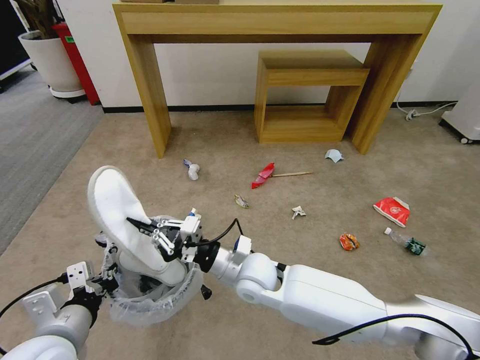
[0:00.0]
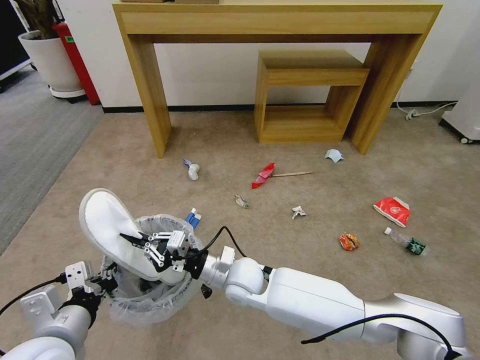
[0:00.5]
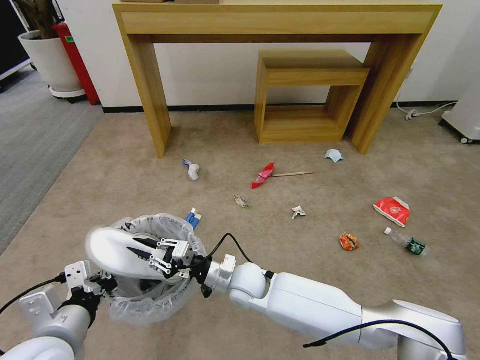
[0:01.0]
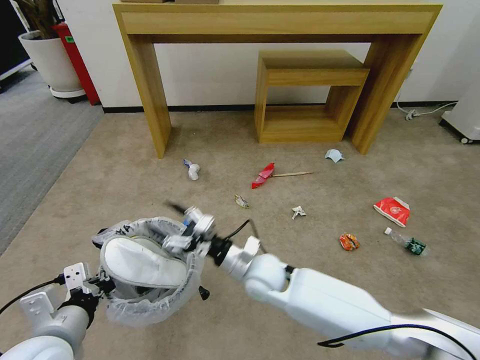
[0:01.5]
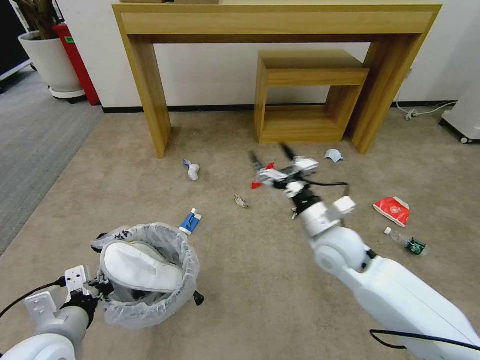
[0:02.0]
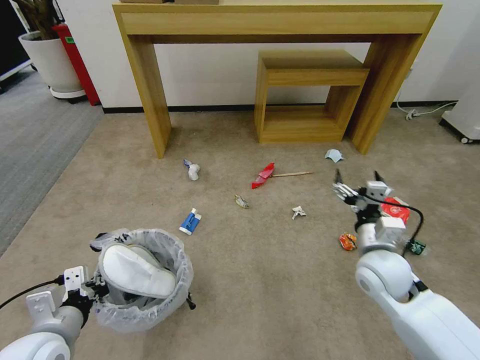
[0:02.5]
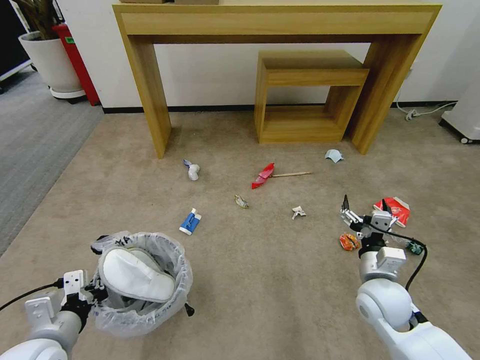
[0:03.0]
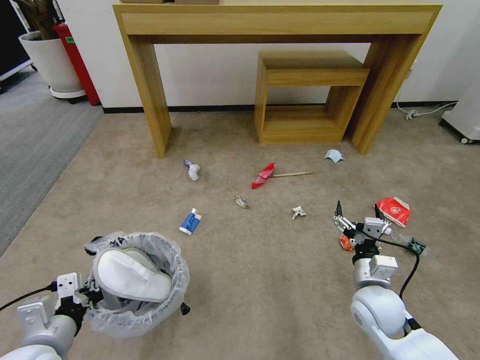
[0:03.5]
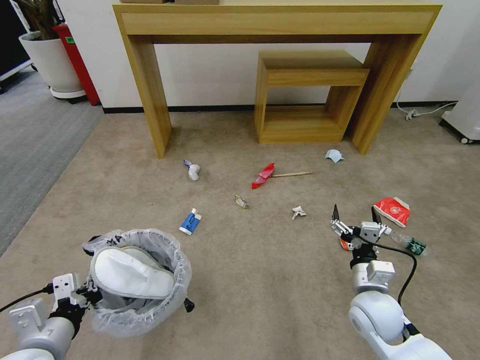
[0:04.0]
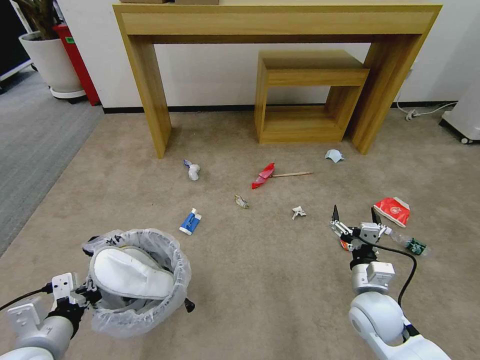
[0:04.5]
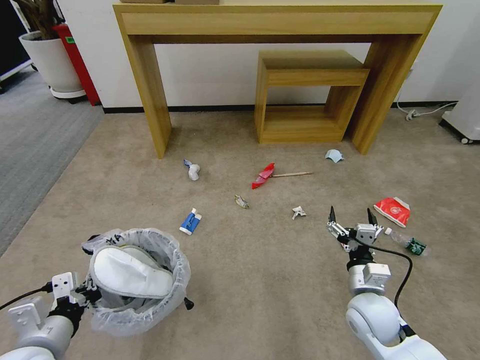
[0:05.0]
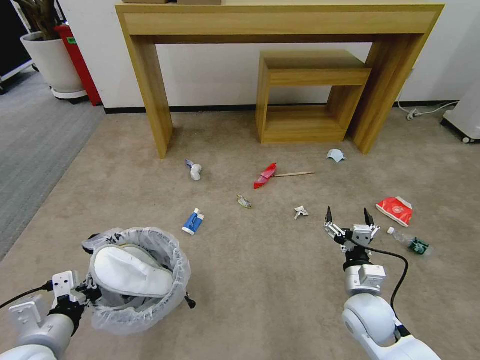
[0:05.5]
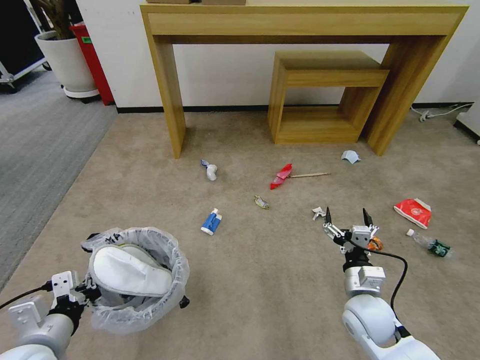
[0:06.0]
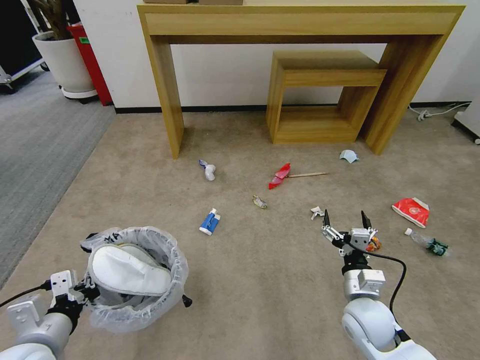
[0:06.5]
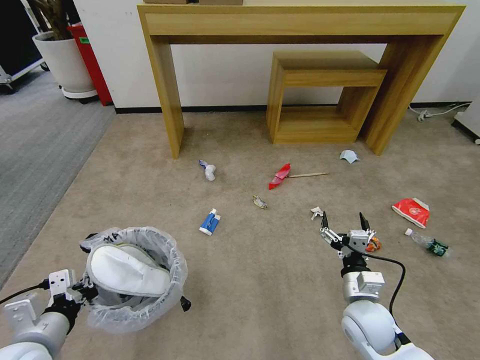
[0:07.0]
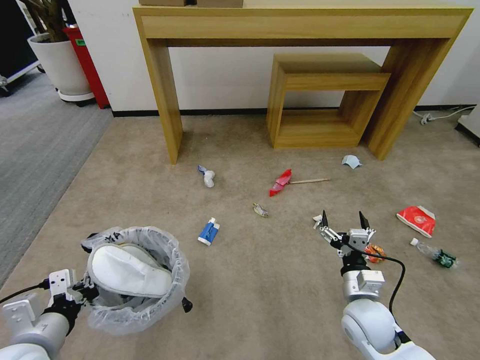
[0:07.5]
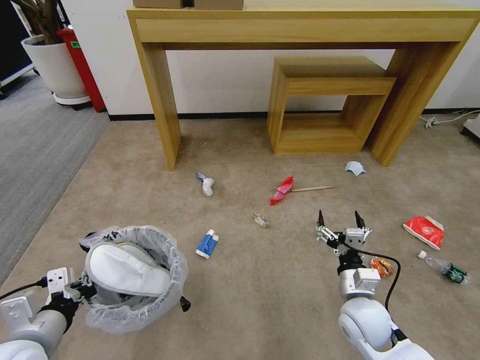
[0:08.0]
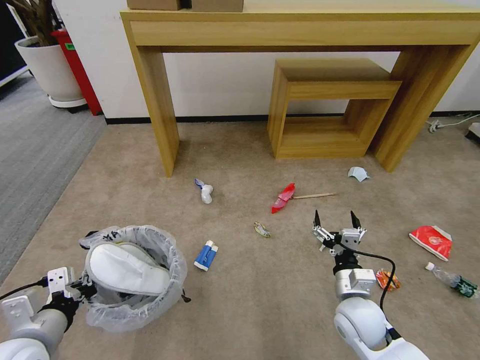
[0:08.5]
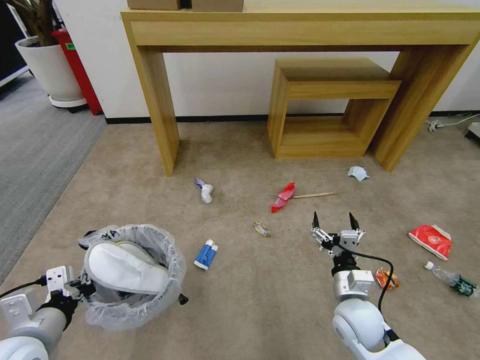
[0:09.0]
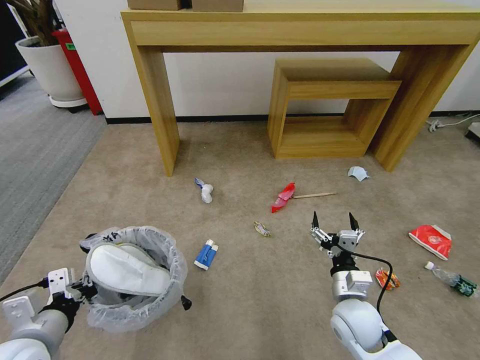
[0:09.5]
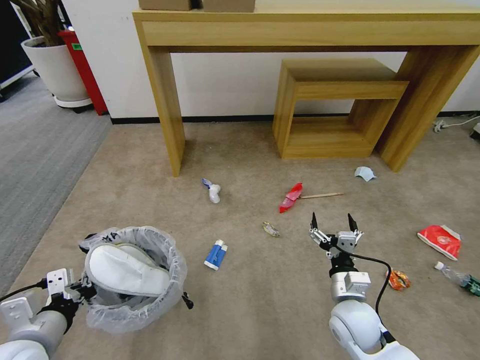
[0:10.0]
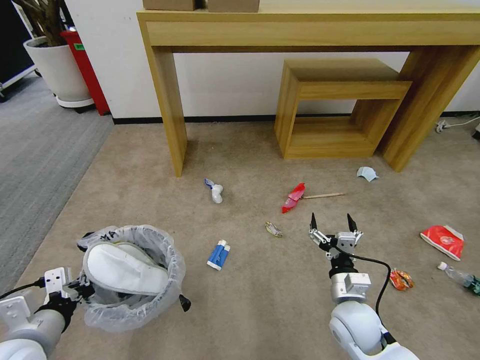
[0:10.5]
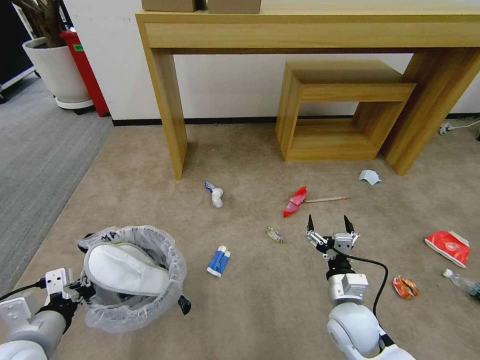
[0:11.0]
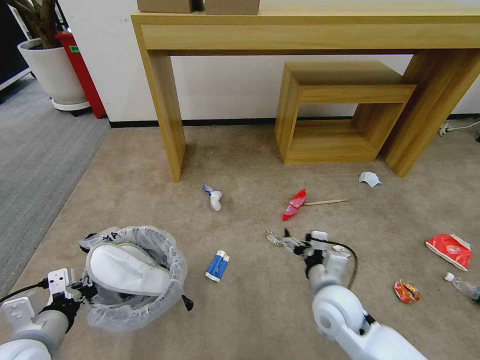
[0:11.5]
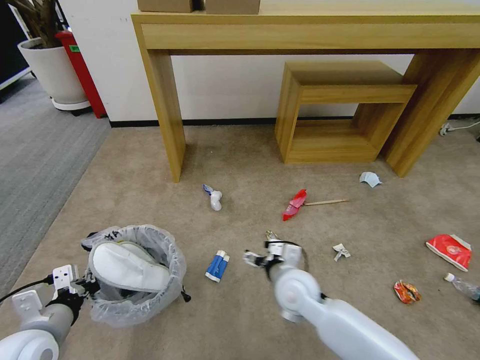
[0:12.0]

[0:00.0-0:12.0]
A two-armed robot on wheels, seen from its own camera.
Task of the whole recording: Pick up the trash bin and place the garbage on the floor into it.
0:00.0 to 0:02.0: The right gripper travels to the right by approximately 15 cm, and opens.
0:02.0 to 0:04.0: The right gripper goes about 15 cm downward, backward and to the right.
0:08.0 to 0:10.0: The grippers stay close to where they were, moving slightly.
0:10.0 to 0:12.0: The right gripper goes some 15 cm to the left and forward.

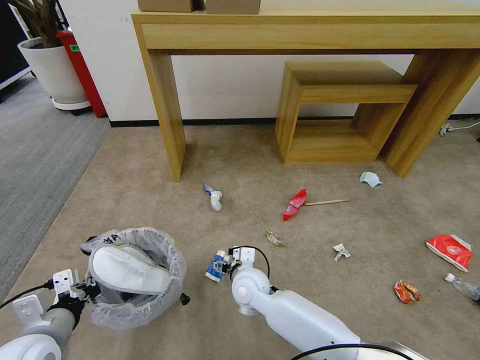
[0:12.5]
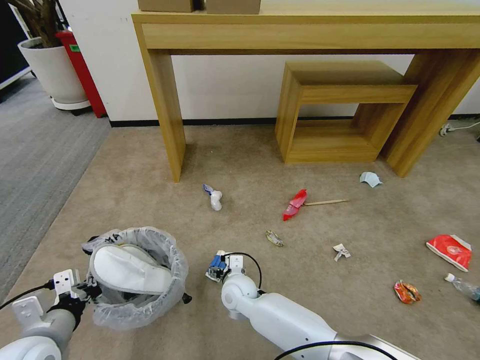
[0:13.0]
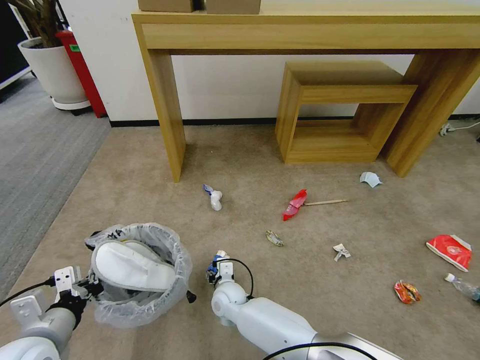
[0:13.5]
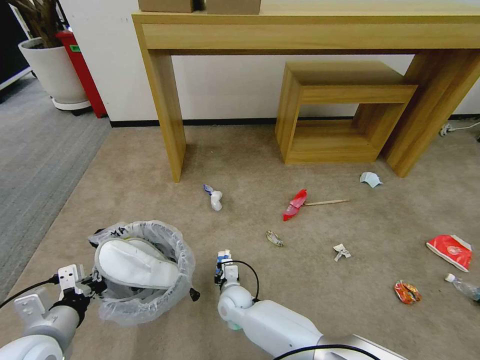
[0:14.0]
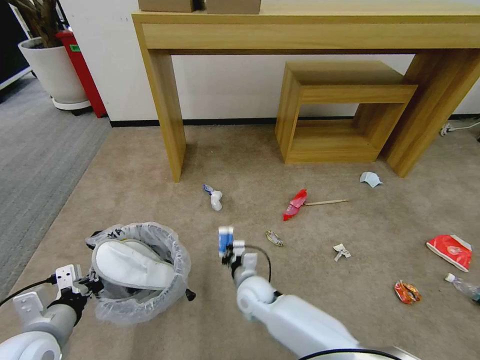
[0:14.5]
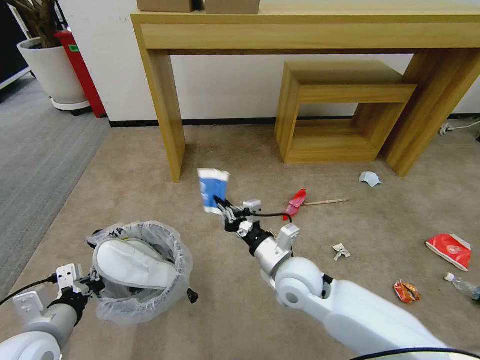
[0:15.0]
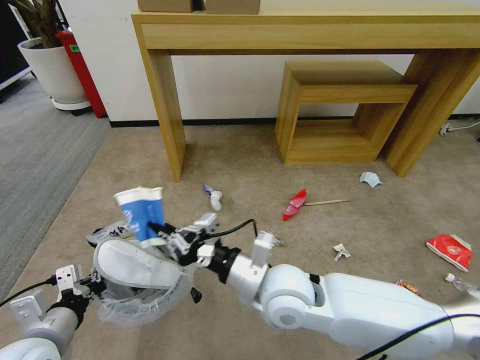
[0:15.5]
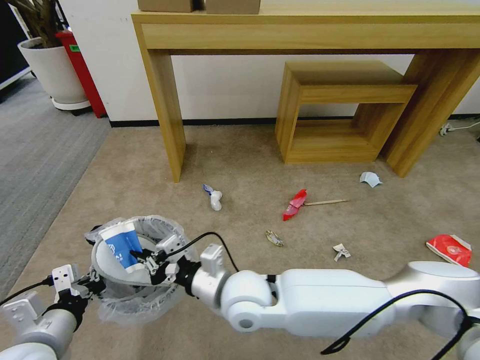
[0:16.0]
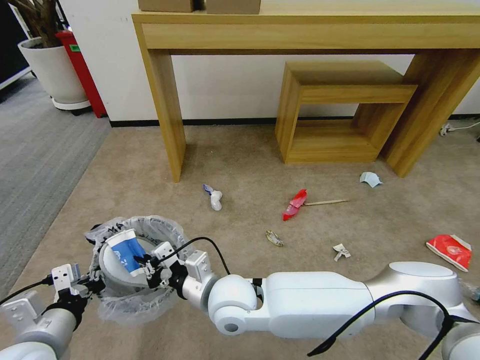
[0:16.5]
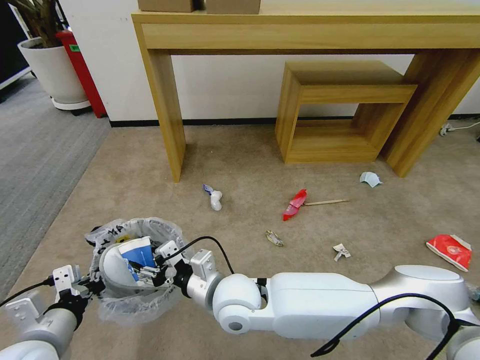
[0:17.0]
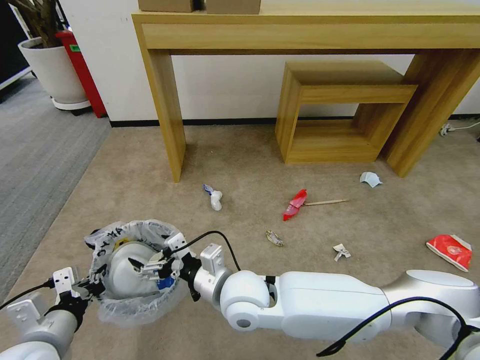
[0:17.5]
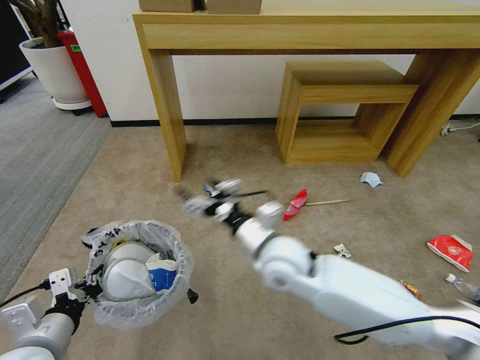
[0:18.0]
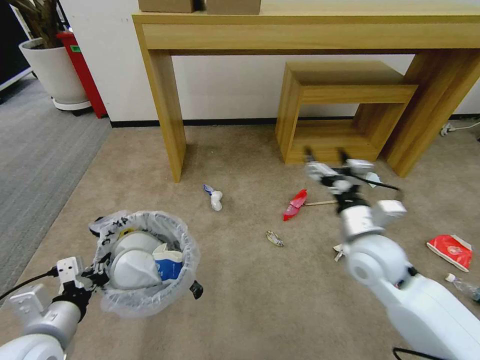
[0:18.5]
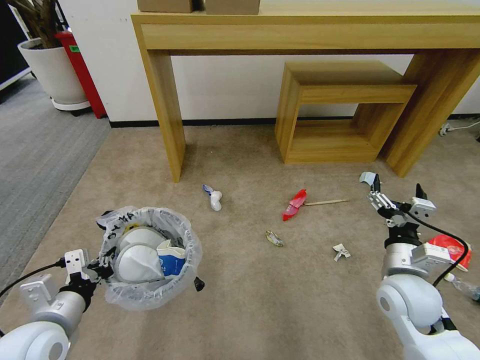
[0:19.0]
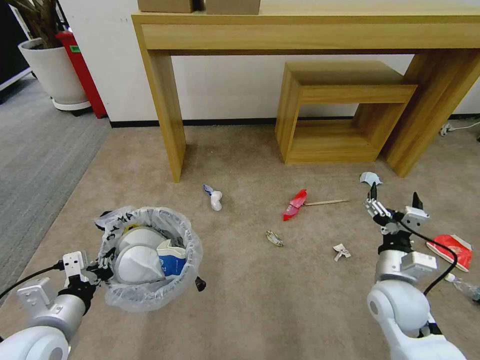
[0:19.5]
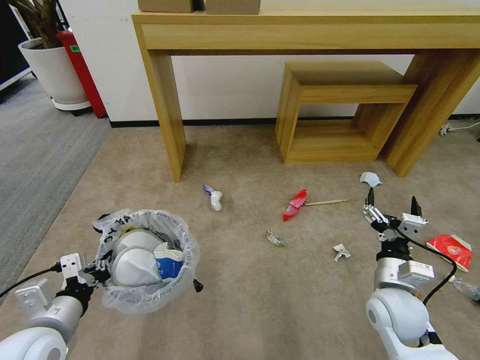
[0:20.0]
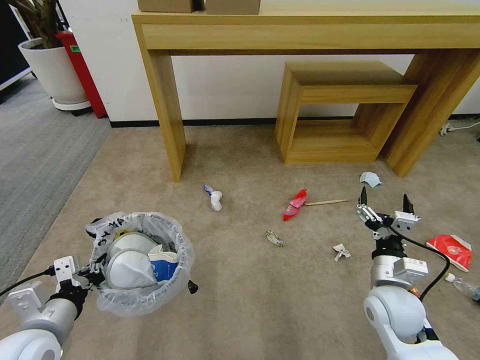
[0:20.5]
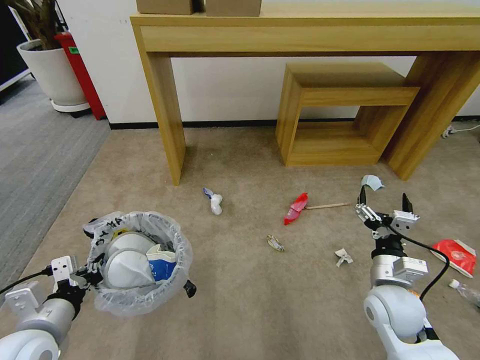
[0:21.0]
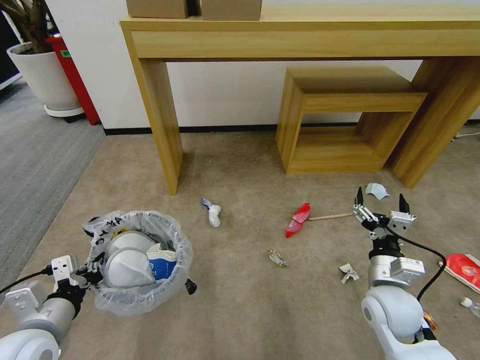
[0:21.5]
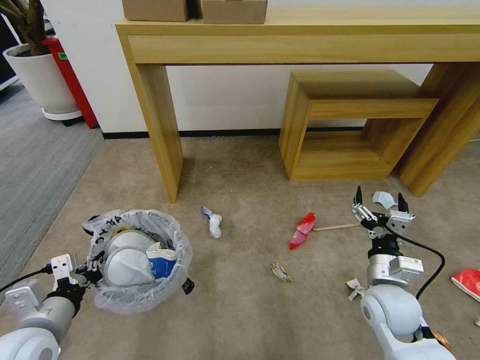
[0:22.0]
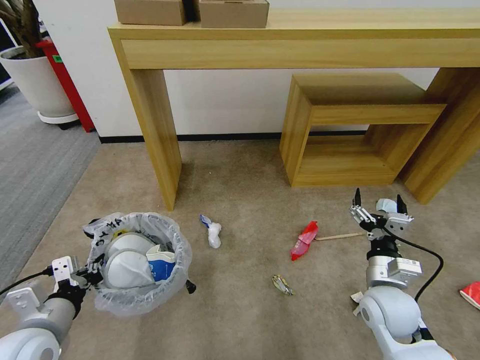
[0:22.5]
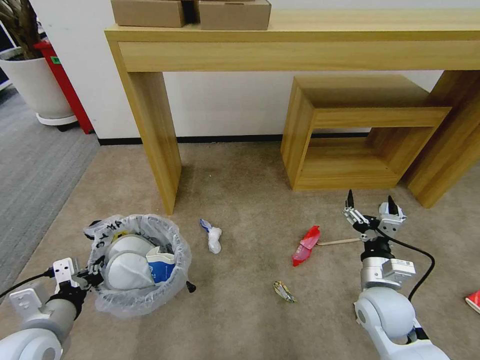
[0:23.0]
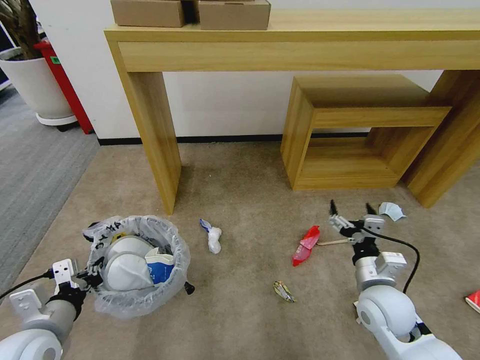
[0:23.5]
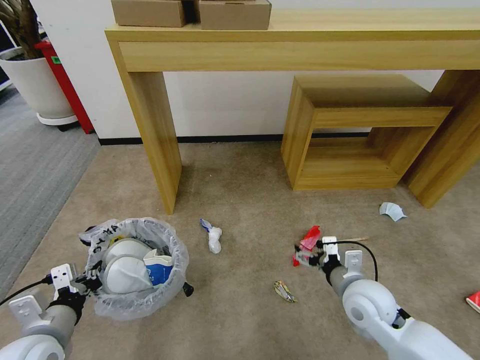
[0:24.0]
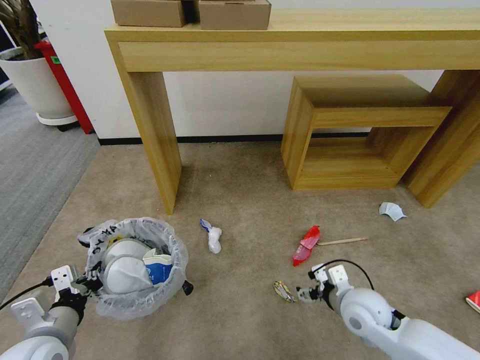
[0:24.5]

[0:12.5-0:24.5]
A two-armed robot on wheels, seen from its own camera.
Task of the whole recording: Pick up the trash bin and place the garbage on the floor into it.
0:12.5 to 0:14.5: The right gripper is displaced downward by about 5 cm, and closes up.
0:14.5 to 0:16.5: The right gripper moves upward and backward, approximately 20 cm.
0:16.5 to 0:18.5: The right gripper travels to the right by roughly 25 cm, and opens its fingers.
0:18.5 to 0:20.5: The right gripper travels downward, to the right and backward by some 15 cm.

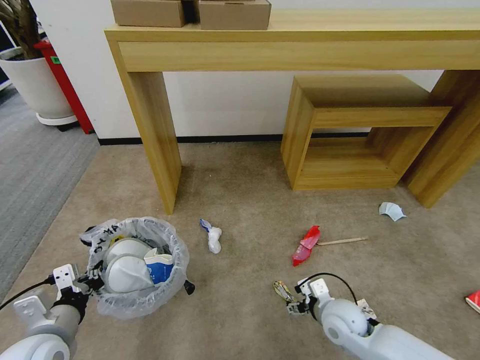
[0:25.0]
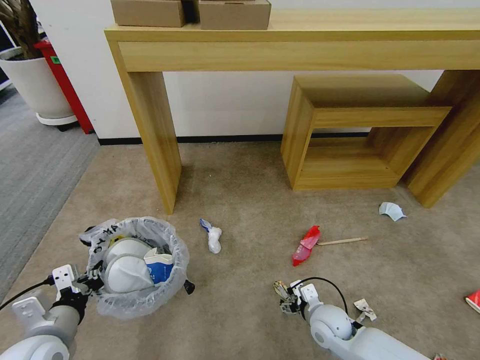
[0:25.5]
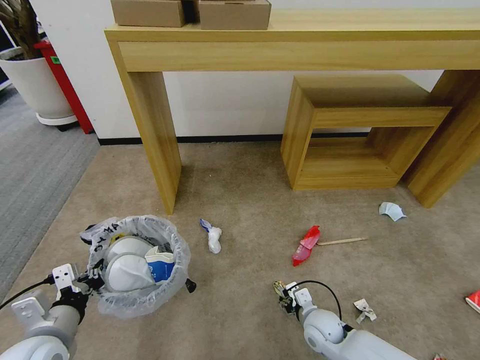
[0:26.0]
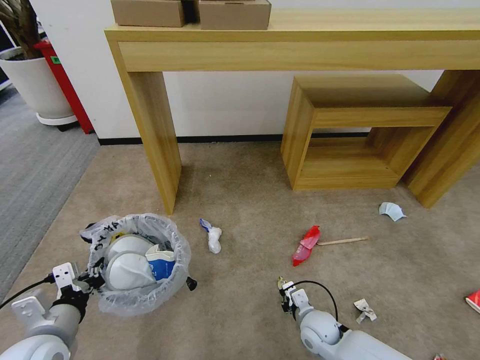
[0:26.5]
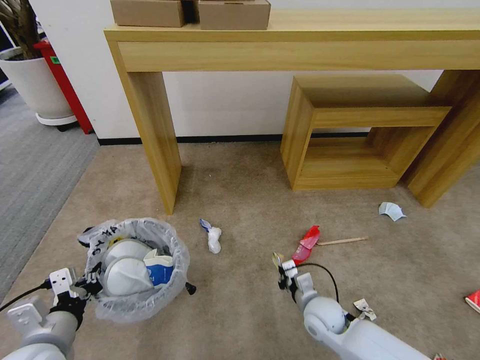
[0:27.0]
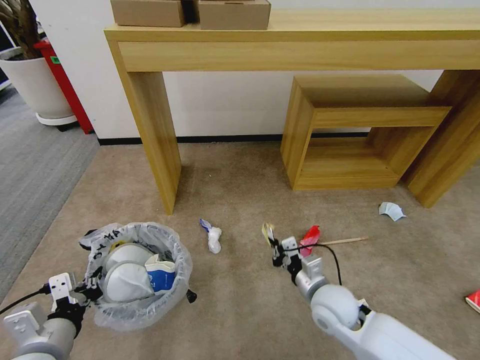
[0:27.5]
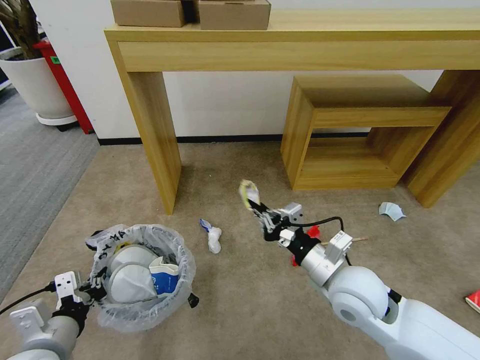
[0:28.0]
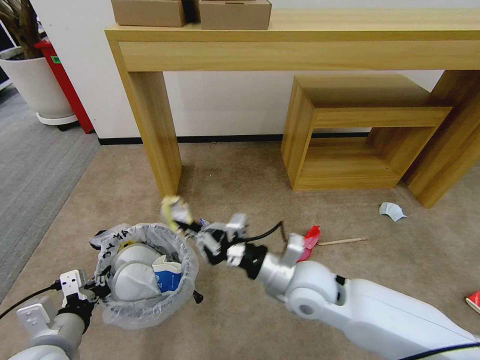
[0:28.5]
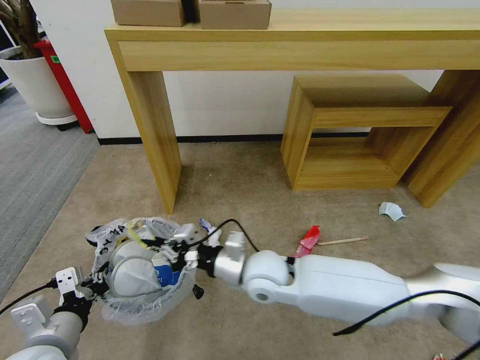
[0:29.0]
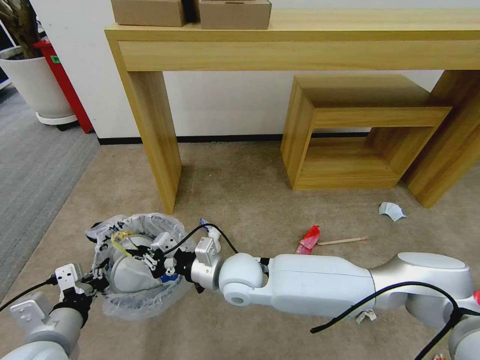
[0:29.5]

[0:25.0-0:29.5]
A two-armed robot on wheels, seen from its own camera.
Task of the whole recording: Pick up the trash bin and place the garbage on the floor into it.
0:25.0 to 0:27.0: The right gripper closes its fingers.
0:27.0 to 0:29.5: The right gripper moves to the left and upward, approximately 25 cm.
